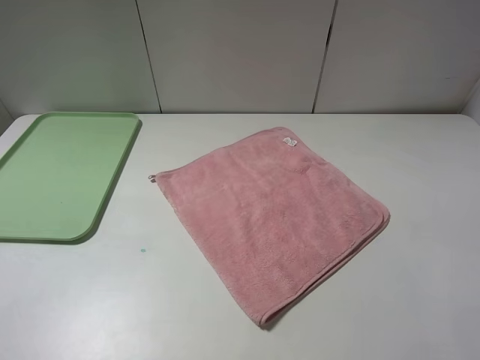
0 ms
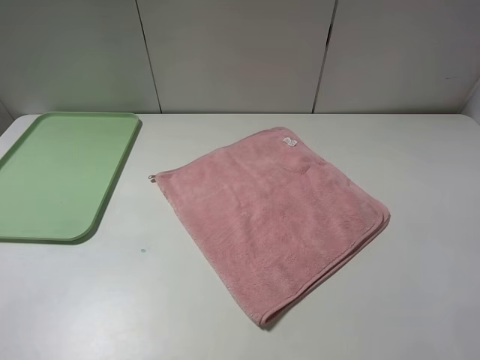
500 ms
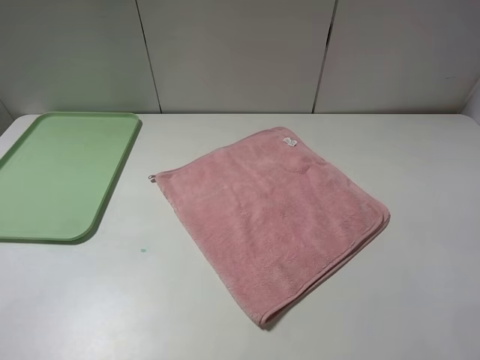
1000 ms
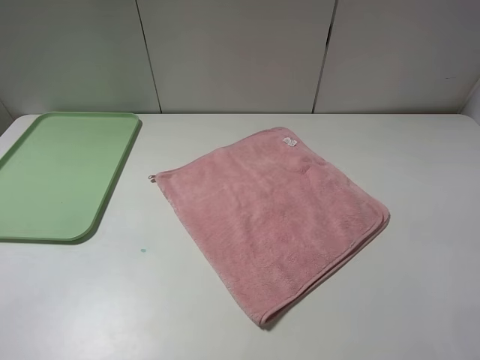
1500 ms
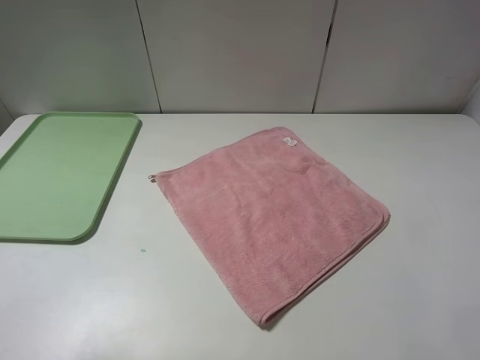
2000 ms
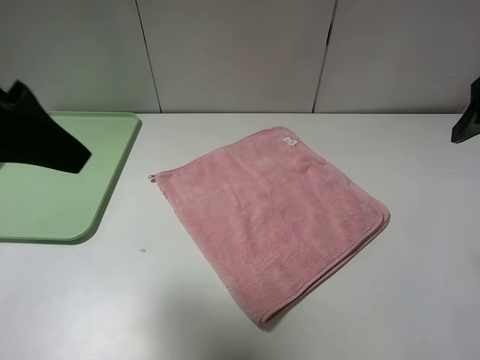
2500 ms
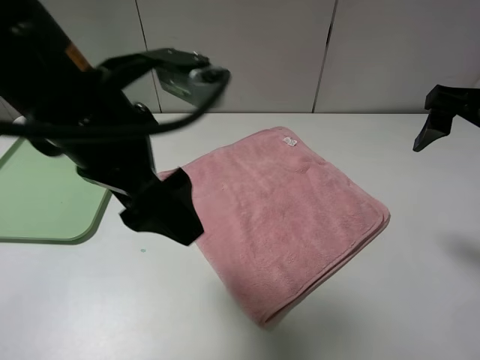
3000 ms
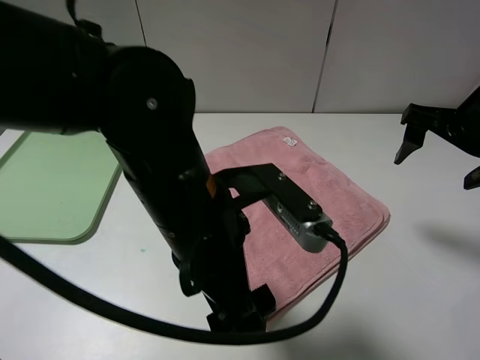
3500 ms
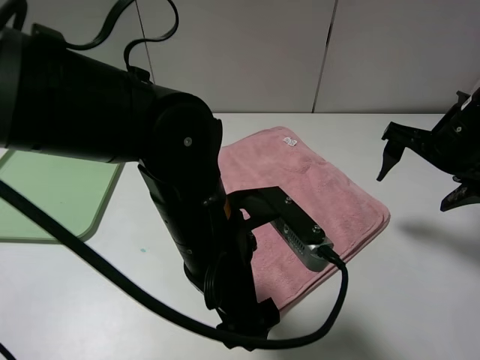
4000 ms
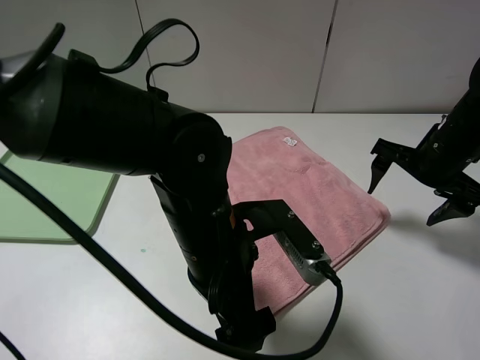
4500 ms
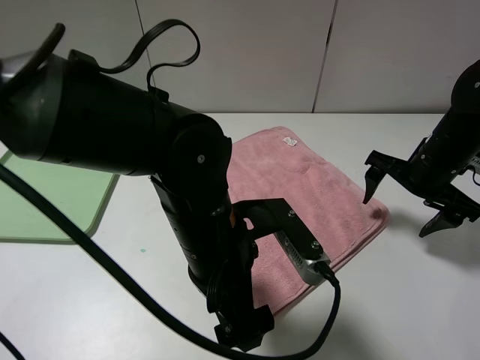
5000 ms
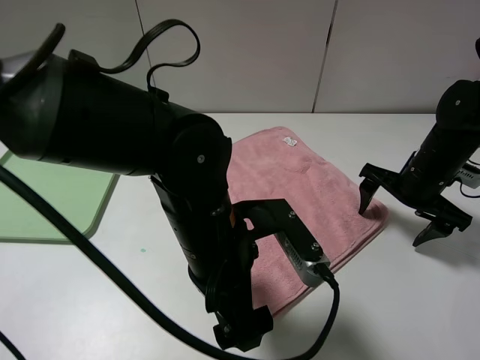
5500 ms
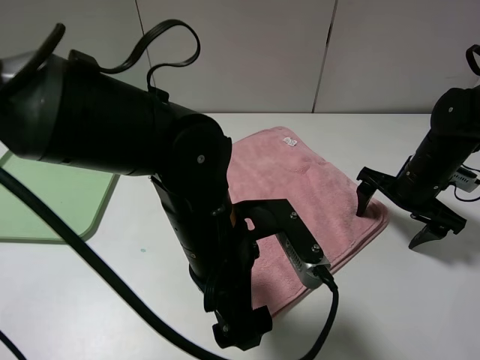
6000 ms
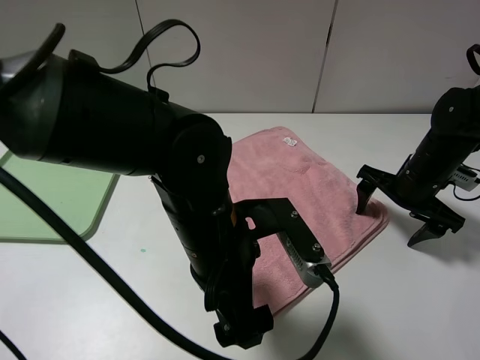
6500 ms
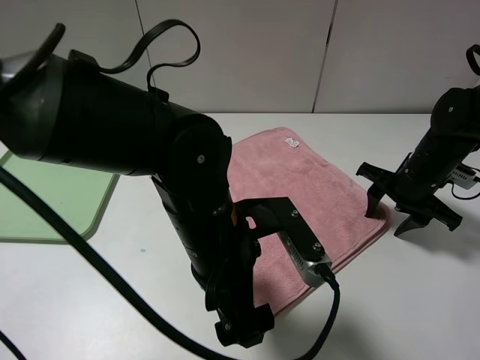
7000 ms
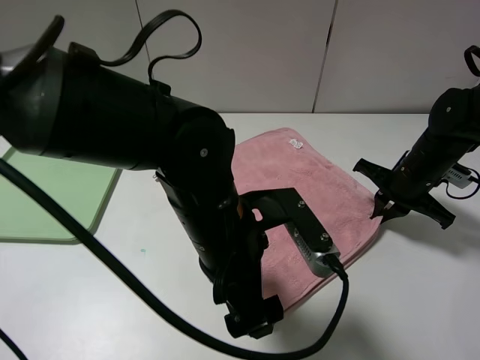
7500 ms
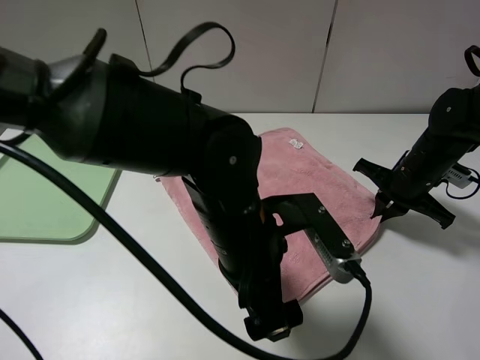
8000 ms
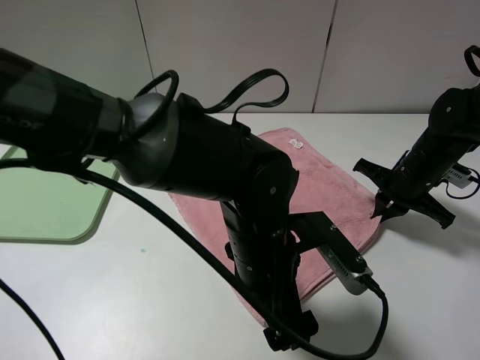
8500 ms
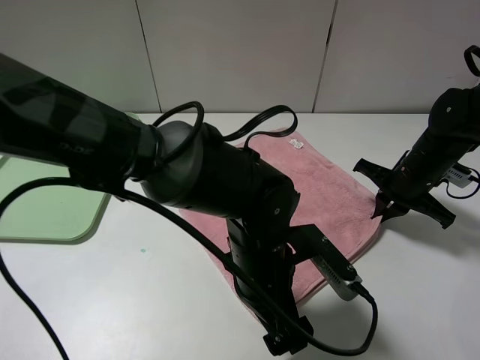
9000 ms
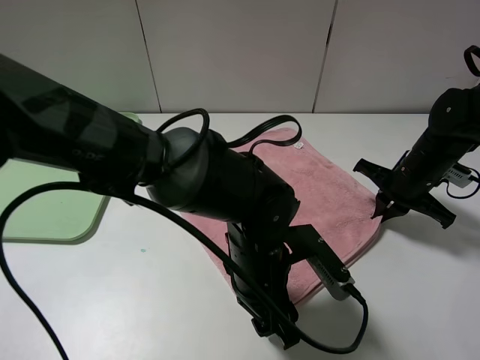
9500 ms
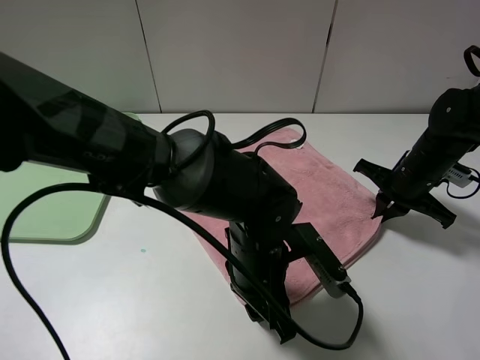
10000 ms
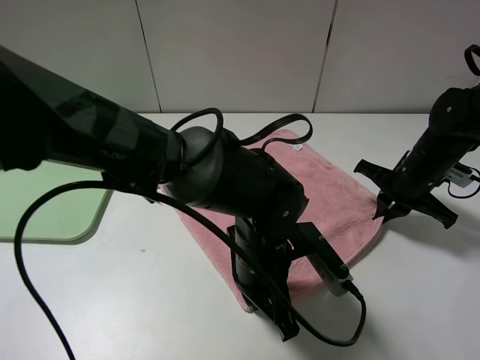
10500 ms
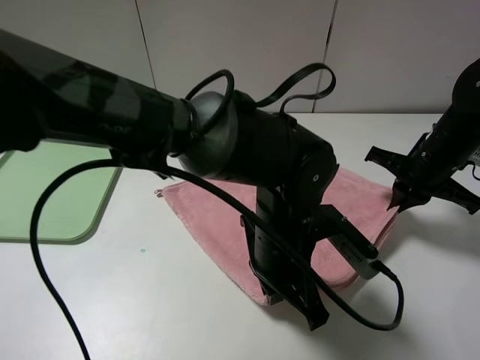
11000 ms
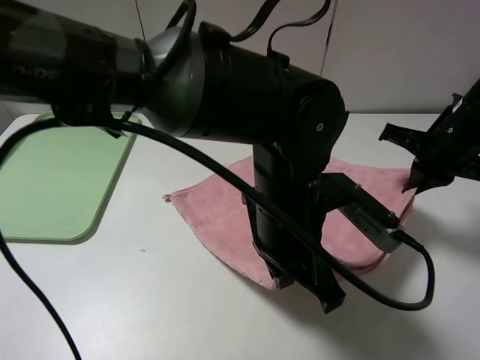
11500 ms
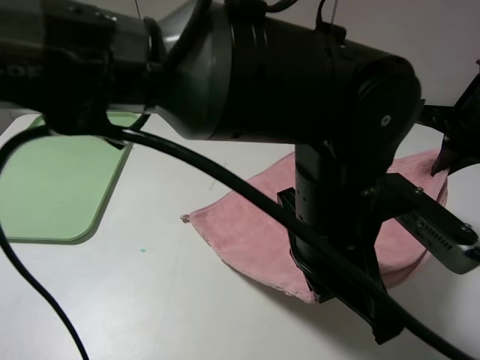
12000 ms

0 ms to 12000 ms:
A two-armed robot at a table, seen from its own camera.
2000 ms to 4000 ms: The left gripper heads to the right and downward, covering about 30 cm. Meanwhile the right gripper travels forward and downward by approximately 25 cm.
4000 ms to 6000 ms: The right gripper goes some 10 cm downward.
6000 ms to 8000 ms: The right gripper closes its fingers.
8000 ms to 10000 ms: The left gripper goes approximately 5 cm downward, and closes its fingers.
10000 ms to 12000 ms: The right gripper shifts some 15 cm upward; the left gripper heads upward and to the right, covering roughly 15 cm, and closes.

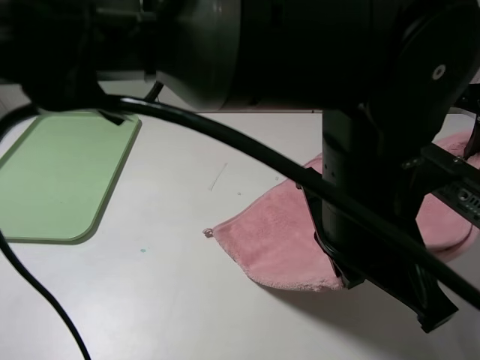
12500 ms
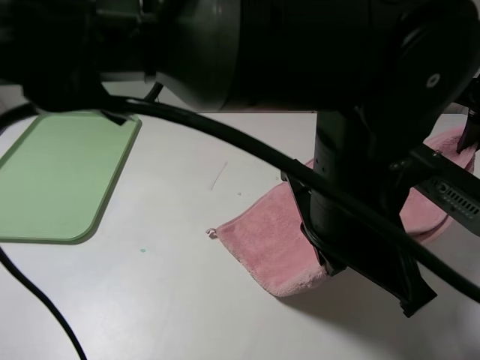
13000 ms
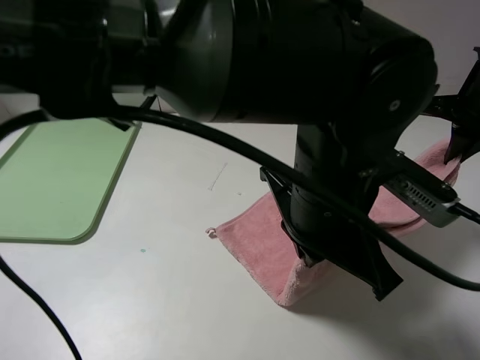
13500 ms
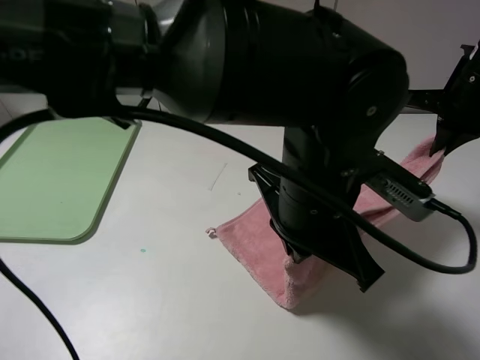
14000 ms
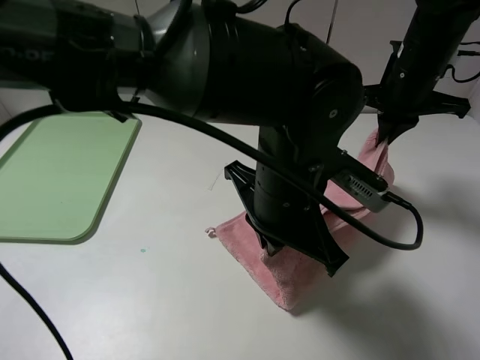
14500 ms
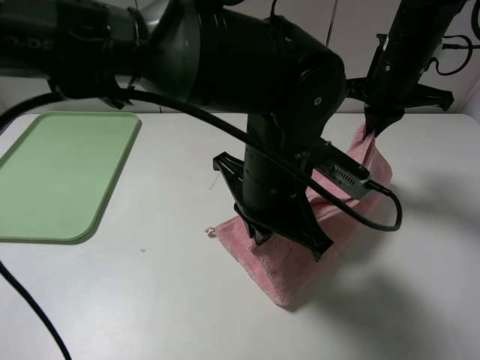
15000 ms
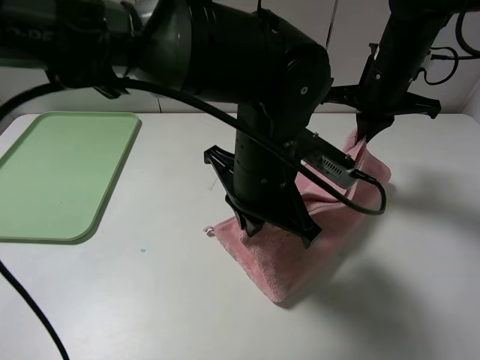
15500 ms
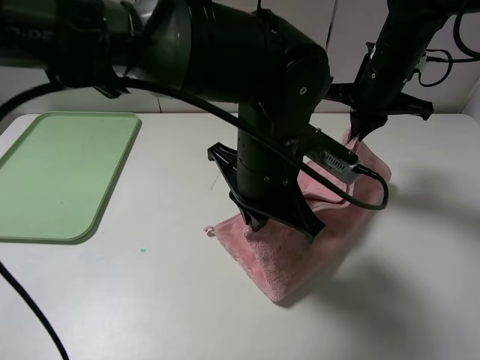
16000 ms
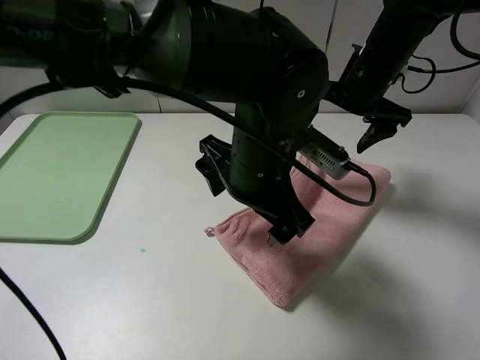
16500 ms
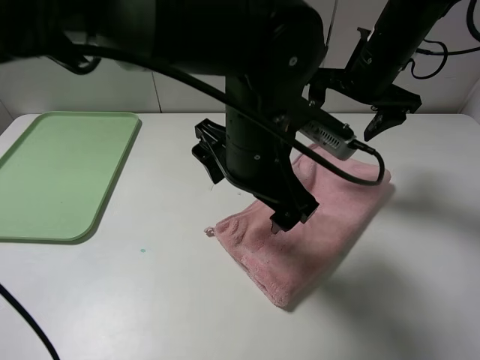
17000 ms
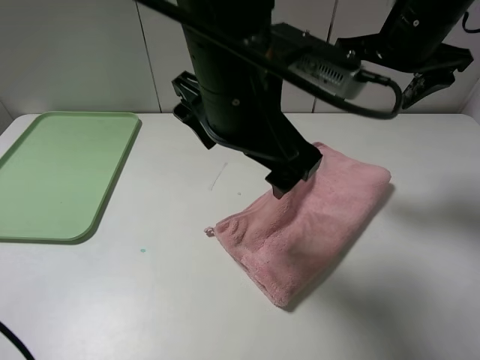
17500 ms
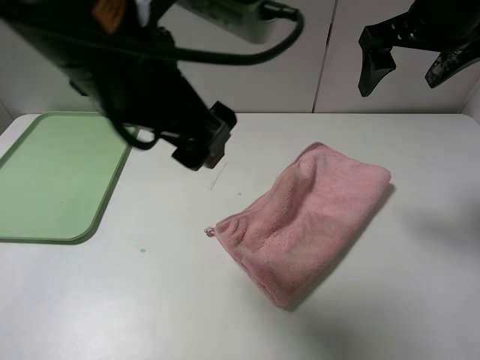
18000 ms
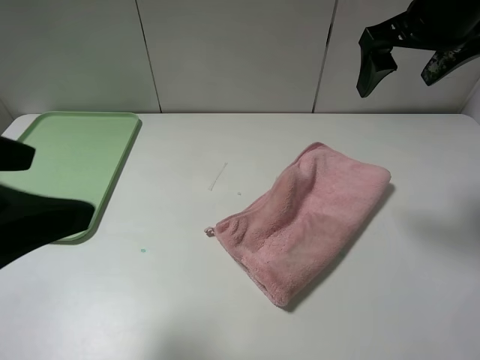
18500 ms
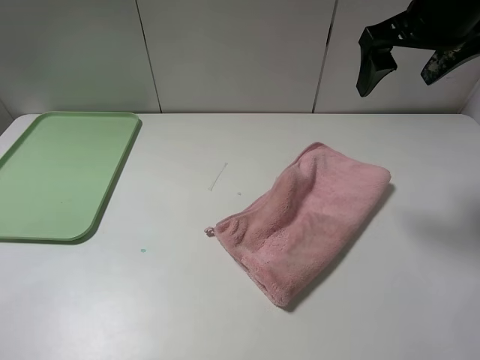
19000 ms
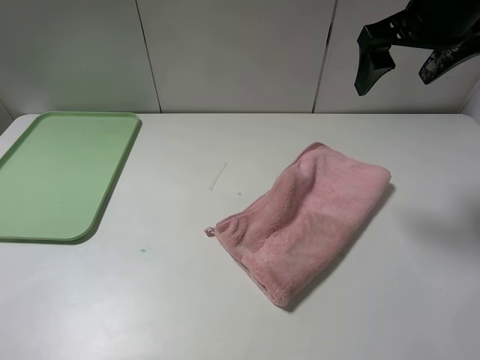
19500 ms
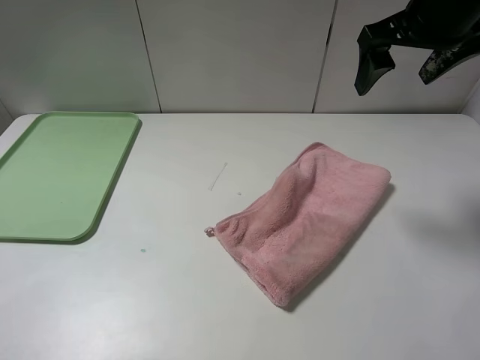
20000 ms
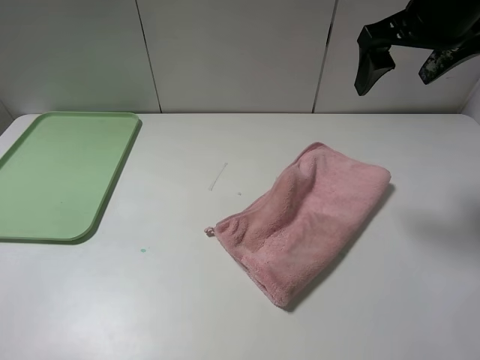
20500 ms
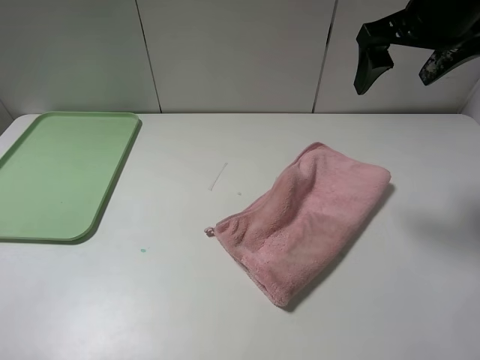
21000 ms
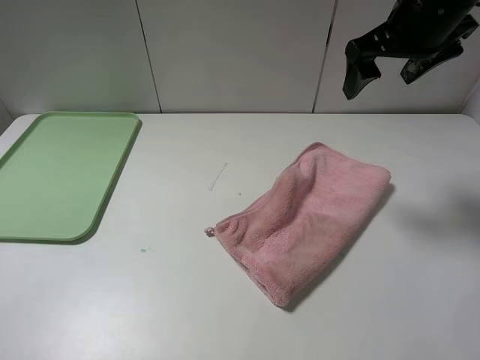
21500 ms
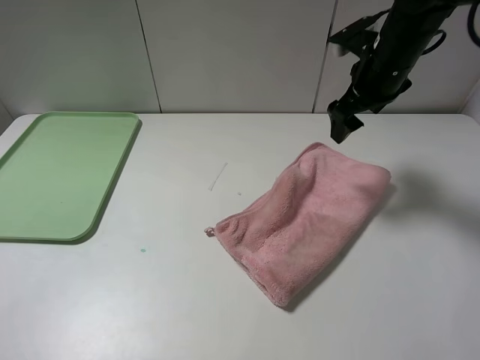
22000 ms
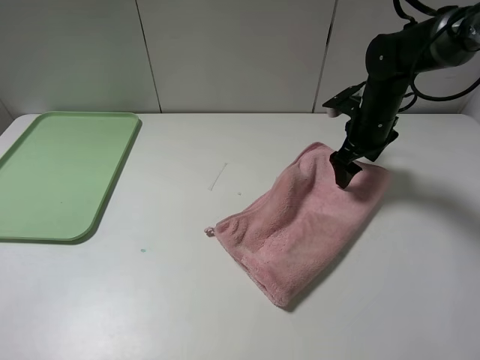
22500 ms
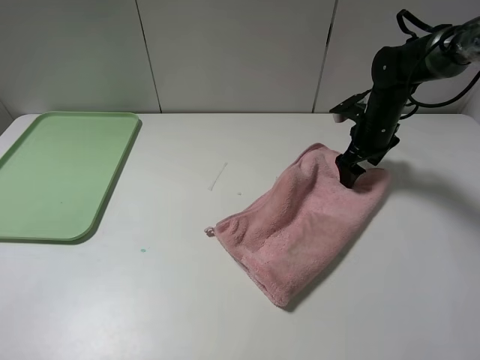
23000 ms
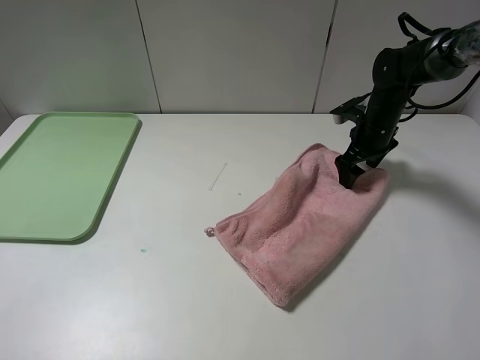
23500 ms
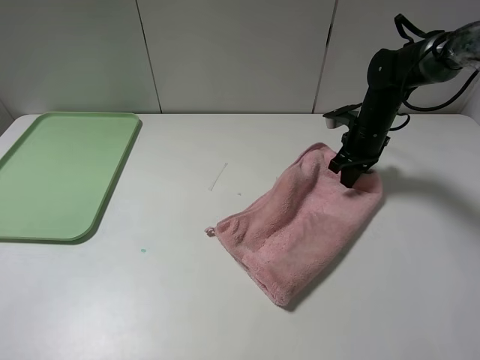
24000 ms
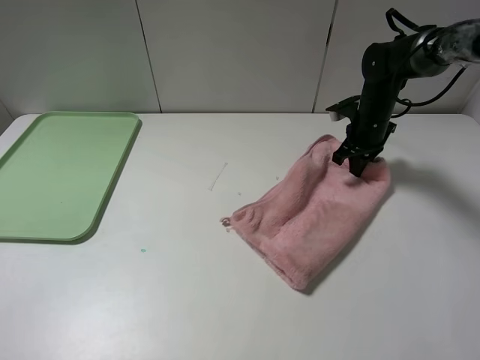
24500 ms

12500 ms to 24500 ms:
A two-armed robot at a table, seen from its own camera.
Step, 12500 ms to 16500 ms: Fold the pink towel upwards.
12500 ms to 14500 ms: The right gripper is displaced to the left and forward by some 10 cm; the left gripper shifts by roughly 10 cm.
14500 ms to 16500 ms: The left gripper opens up, while the right gripper opens.
16500 ms to 18500 ms: The left gripper travels to the left, backward and upward by about 30 cm. Meanwhile the right gripper is displaced upward and backward by roughly 10 cm.
18500 ms to 20500 ms: The left gripper moves to the left and backward, about 10 cm.
20500 ms to 22500 ms: The right gripper shifts about 20 cm downward and forward.
22500 ms to 24500 ms: The right gripper shifts by roughly 5 cm, and closes its fingers.

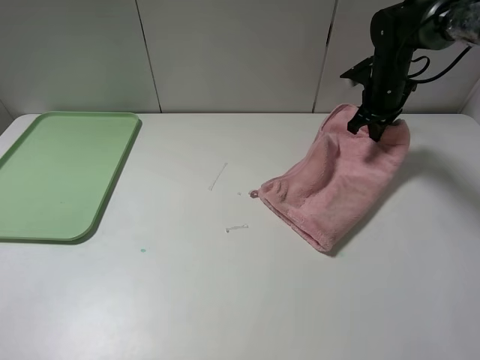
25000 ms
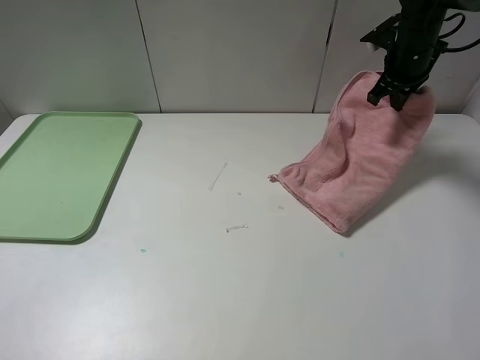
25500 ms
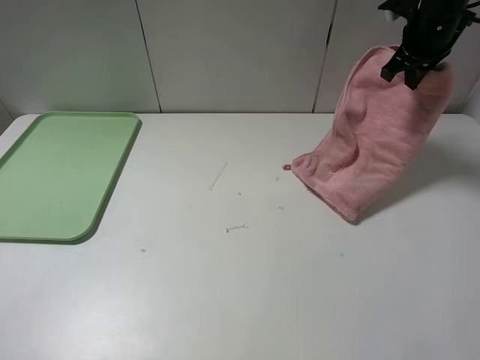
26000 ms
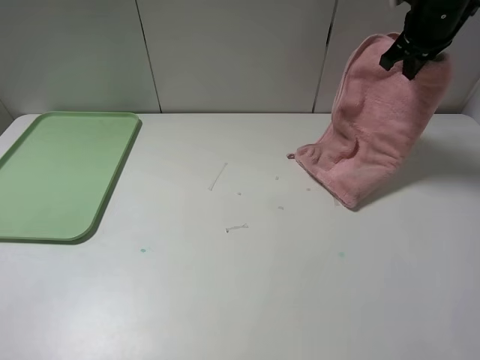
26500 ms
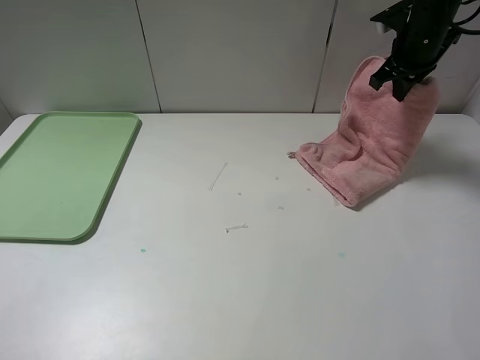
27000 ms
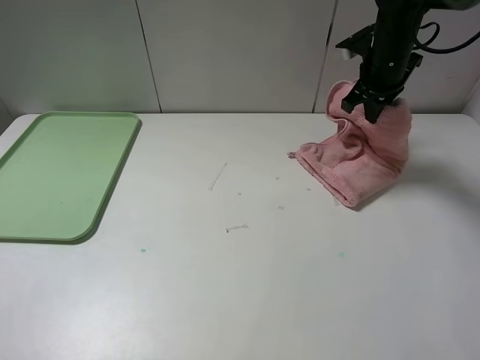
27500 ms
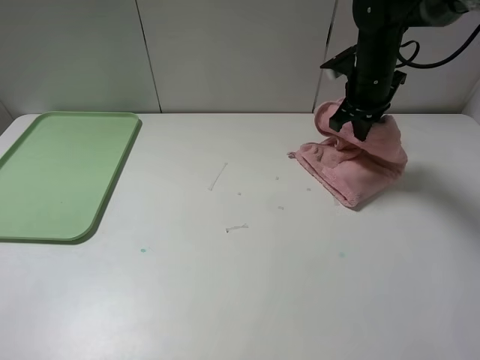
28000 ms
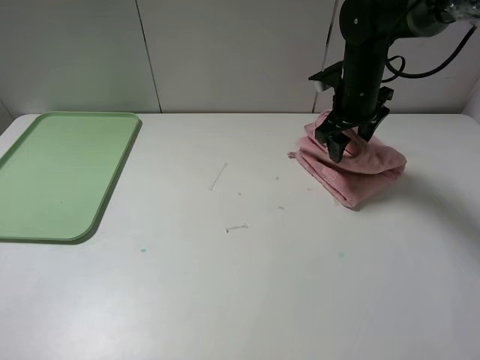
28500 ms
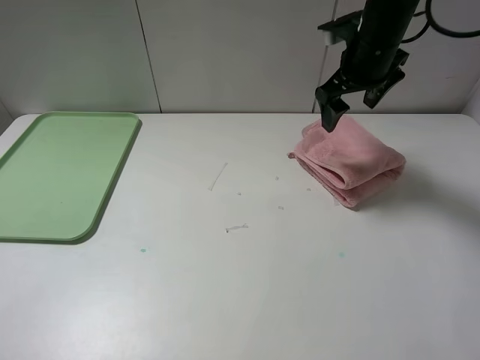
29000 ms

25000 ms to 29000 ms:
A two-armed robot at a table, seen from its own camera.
Step, 25000 ms to 28500 ms: Fold the pink towel from right to left with right gripper.
25000 ms to 27000 ms: The right gripper travels upward by about 10 cm.
27000 ms to 29000 ms: The right gripper shifts some 10 cm to the left and backward, and opens up.
